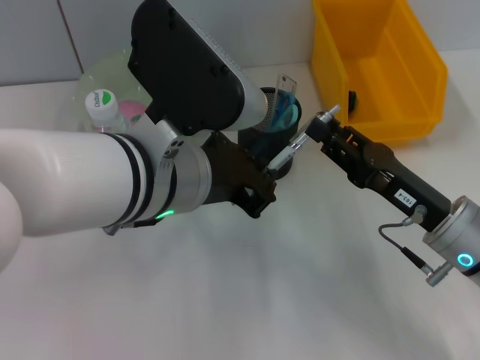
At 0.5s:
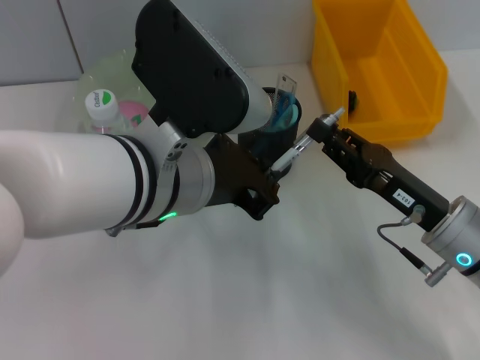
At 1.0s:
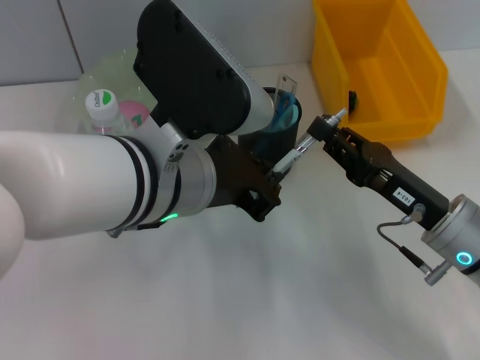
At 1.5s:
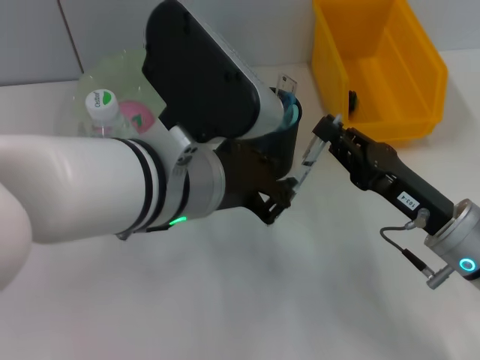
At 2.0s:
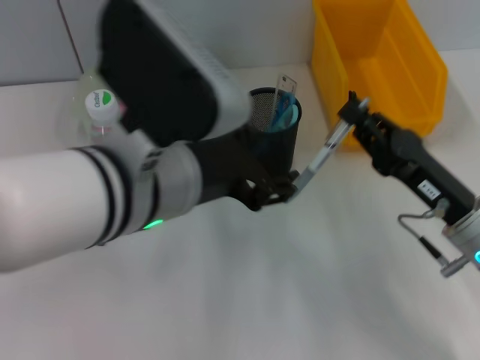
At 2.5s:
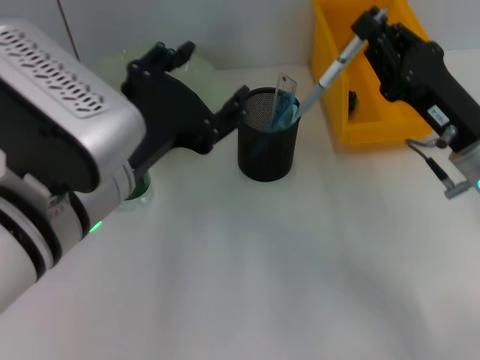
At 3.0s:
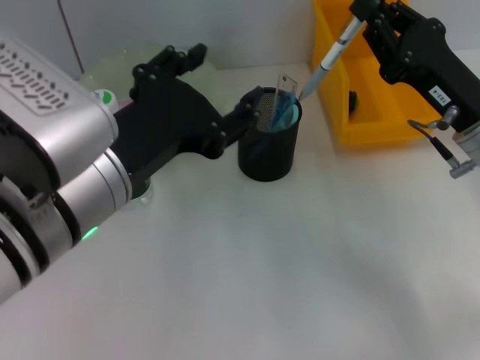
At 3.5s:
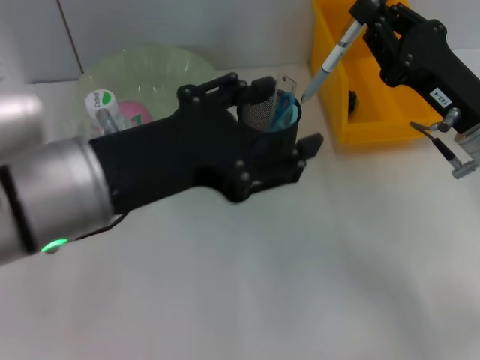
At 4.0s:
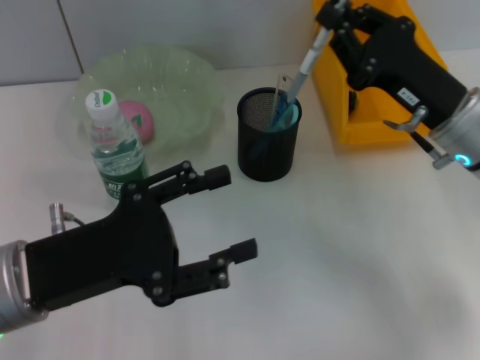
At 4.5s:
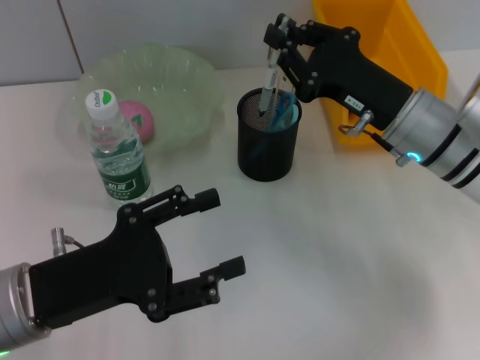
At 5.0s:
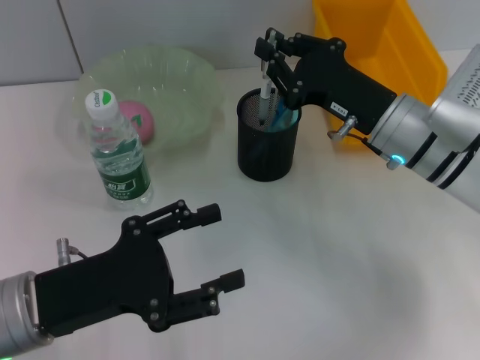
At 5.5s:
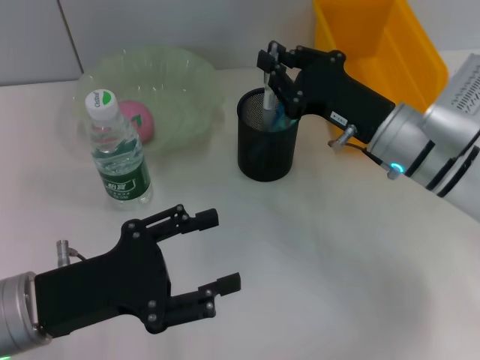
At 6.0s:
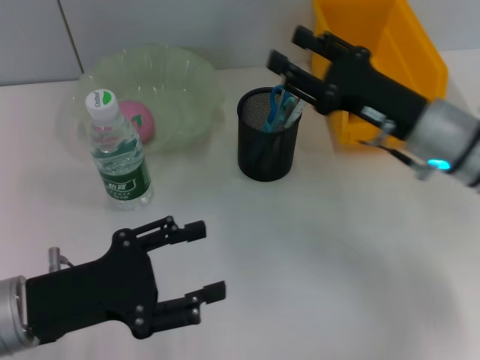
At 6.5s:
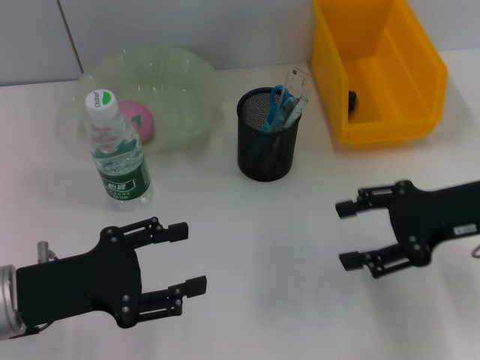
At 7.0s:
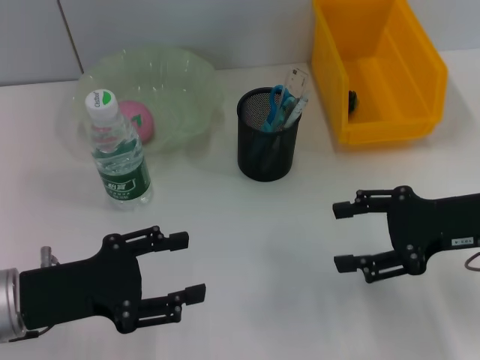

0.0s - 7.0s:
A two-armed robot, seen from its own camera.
Step, 2.0s - 5.5s: Place the gray spring-action pen into the pen holder with the right hand.
0.0s - 2.0s: The right gripper closes up, while the left gripper opens up.
2.0s - 3.5s: The right gripper shifts about 10 cm forward and upward. The left gripper is displaced to the left by roughly 5 cm.
3.5s - 5.0s: The left gripper is displaced downward and to the left by some 15 cm. Meanwhile the right gripper moves to the left, approximately 5 cm.
5.0s - 7.0s: The right gripper travels to the right and backward by some 10 cm, and opens its fingers.
